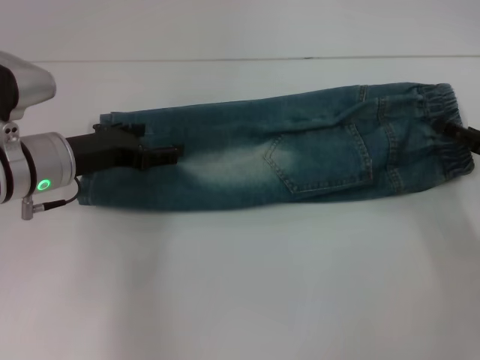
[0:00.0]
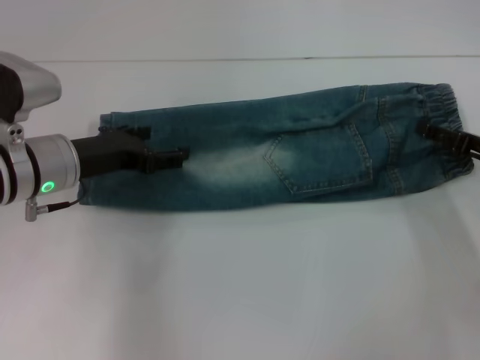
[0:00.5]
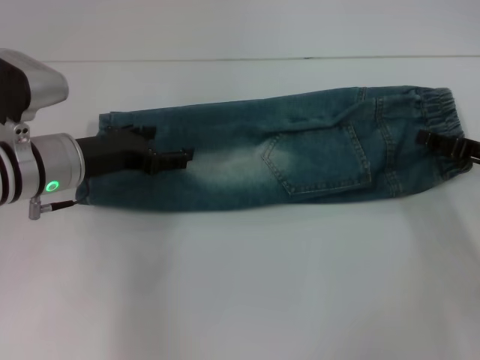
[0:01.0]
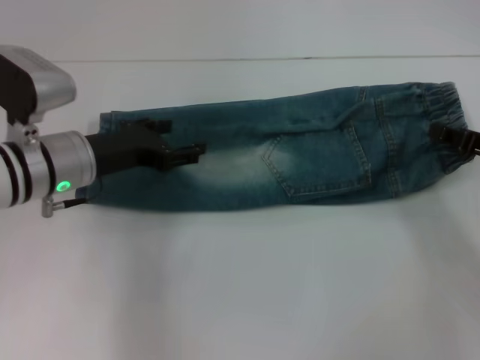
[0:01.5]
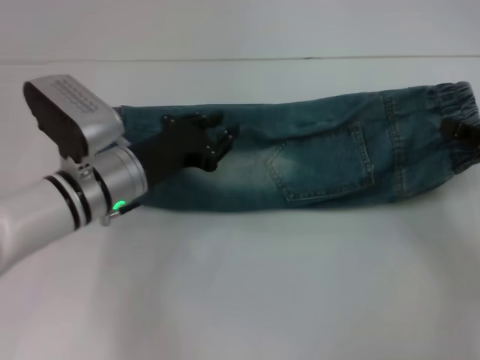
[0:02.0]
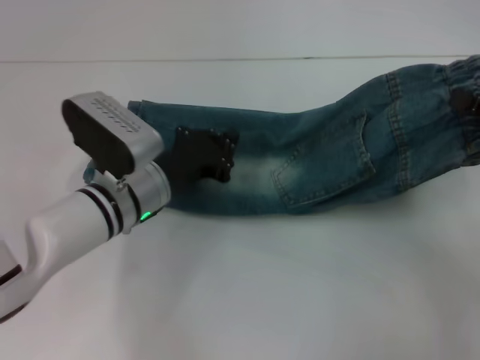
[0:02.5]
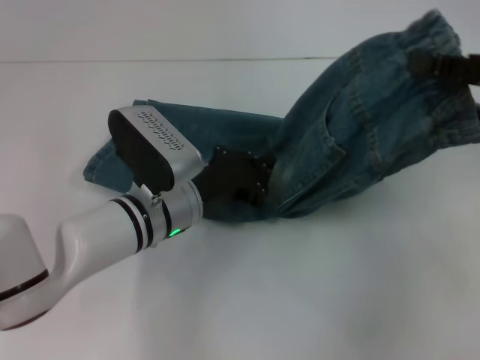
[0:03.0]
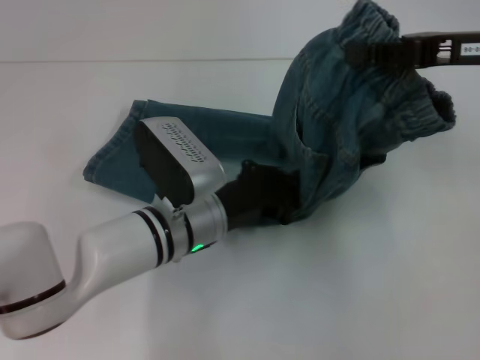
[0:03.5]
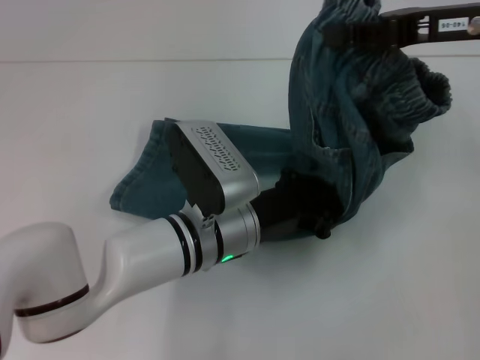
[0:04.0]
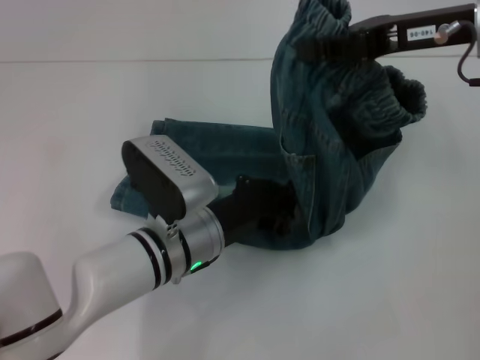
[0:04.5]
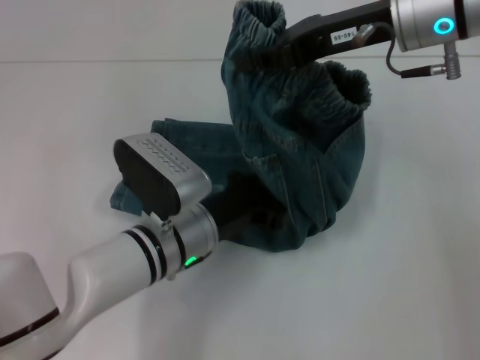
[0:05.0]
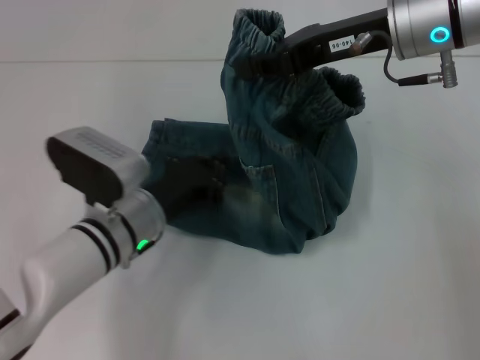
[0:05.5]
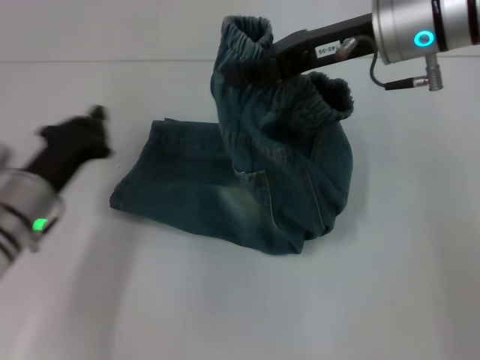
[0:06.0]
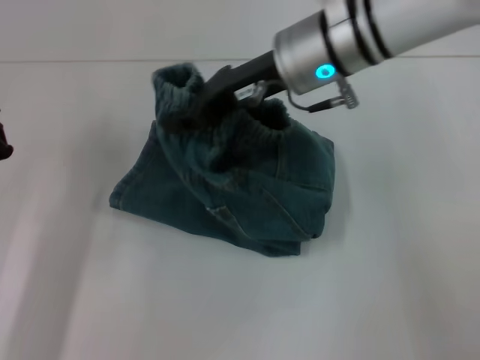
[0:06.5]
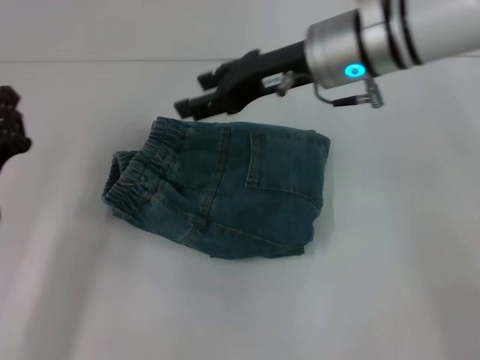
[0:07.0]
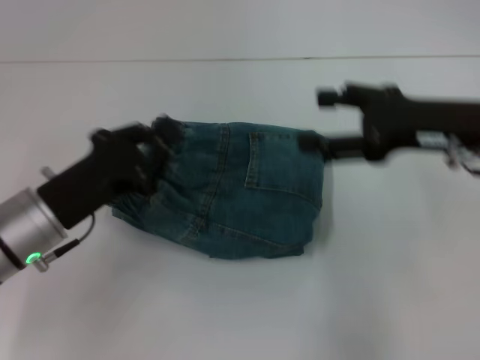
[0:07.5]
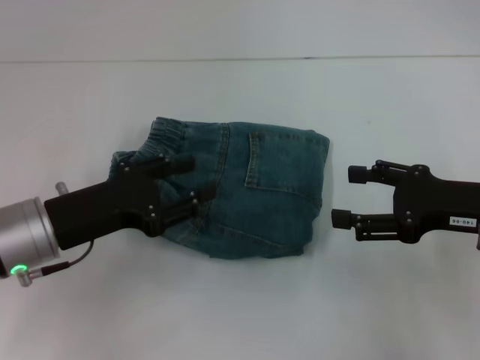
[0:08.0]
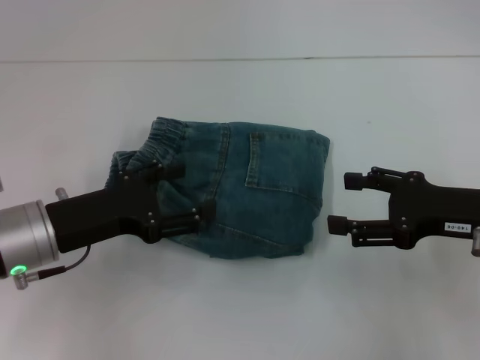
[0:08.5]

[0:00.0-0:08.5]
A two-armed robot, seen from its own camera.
Step, 0:01.5 to 0:05.0: Press the middle of the pants with your left hand.
Step, 0:05.5 to 0:06.5: Fold to the left with your right hand.
0:00.0 to 0:02.0: The left gripper moves to the right, roughly 5 cm, and closes its fingers. The right gripper closes.
0:02.0 to 0:04.0: The right gripper heads upward, to the left and forward, covering approximately 20 cm. Meanwhile the left gripper is displaced to the right by about 10 cm, and closes its fingers.
0:04.0 to 0:06.5: Both grippers travel together to the left, approximately 20 cm.
0:06.5 to 0:08.5: The right gripper travels to the right, backward and downward by about 25 cm, and opens; the left gripper heads to the right, covering some 5 cm, and opens its fingers.
